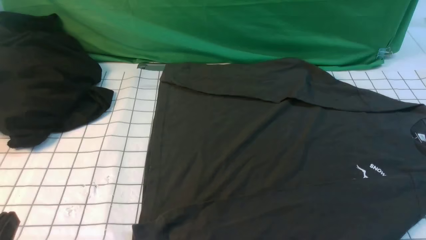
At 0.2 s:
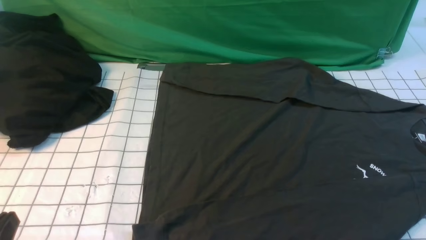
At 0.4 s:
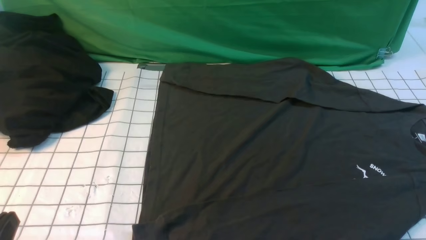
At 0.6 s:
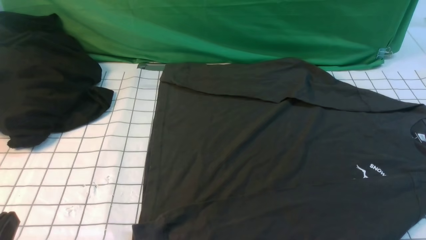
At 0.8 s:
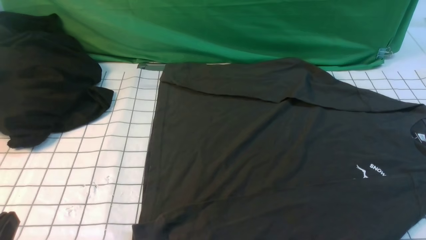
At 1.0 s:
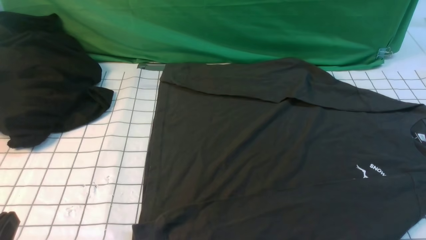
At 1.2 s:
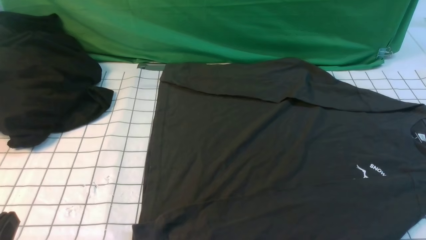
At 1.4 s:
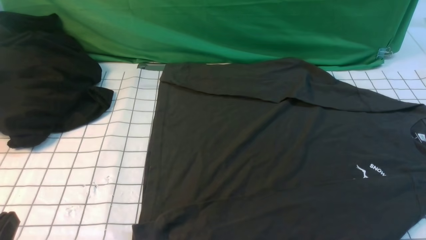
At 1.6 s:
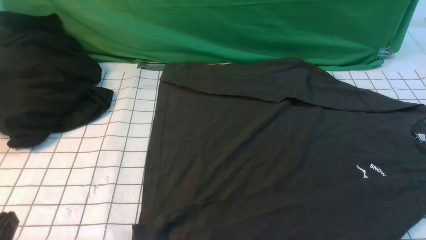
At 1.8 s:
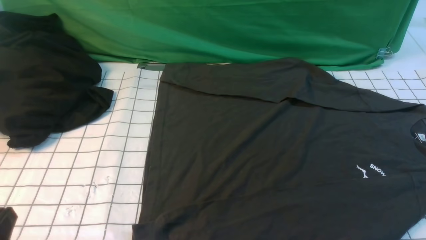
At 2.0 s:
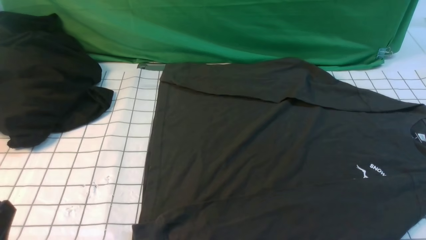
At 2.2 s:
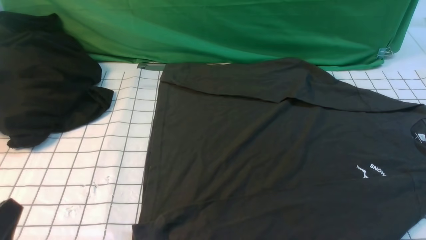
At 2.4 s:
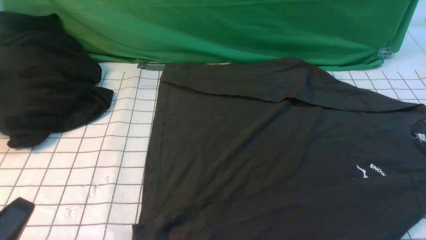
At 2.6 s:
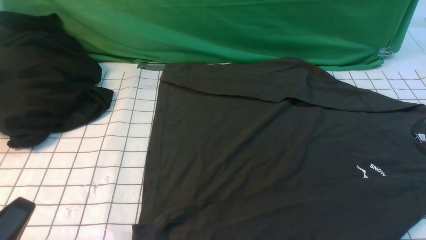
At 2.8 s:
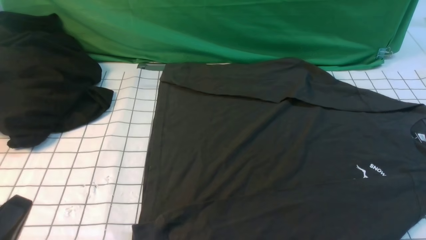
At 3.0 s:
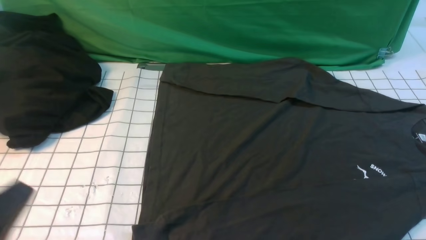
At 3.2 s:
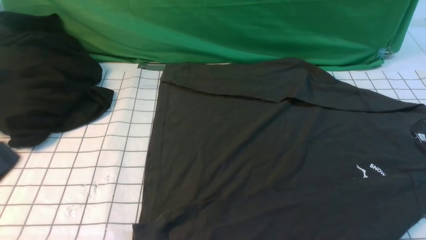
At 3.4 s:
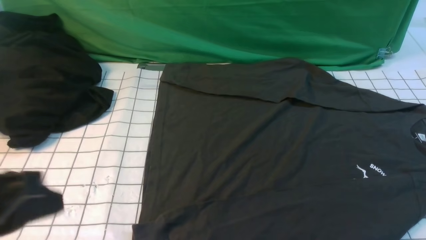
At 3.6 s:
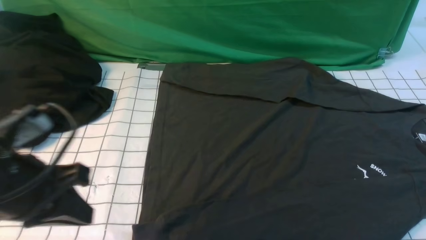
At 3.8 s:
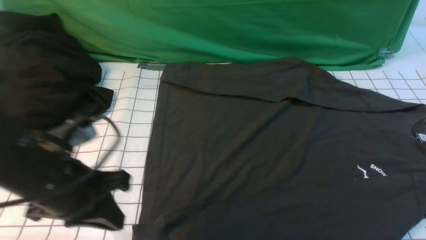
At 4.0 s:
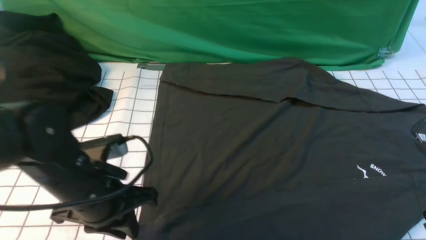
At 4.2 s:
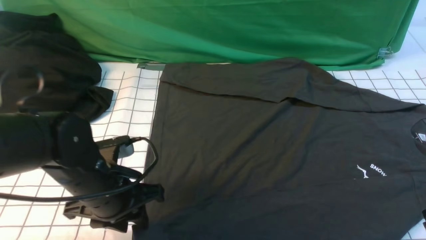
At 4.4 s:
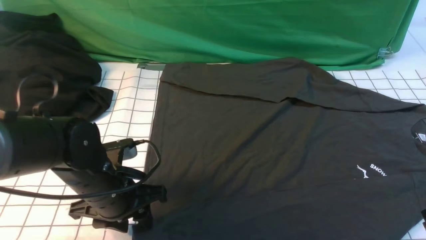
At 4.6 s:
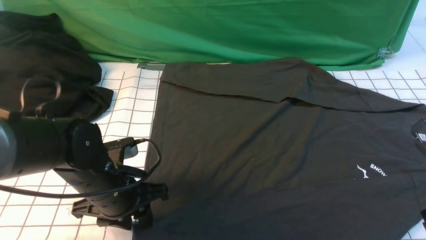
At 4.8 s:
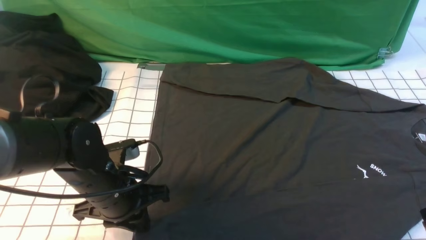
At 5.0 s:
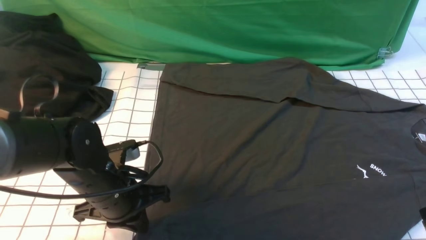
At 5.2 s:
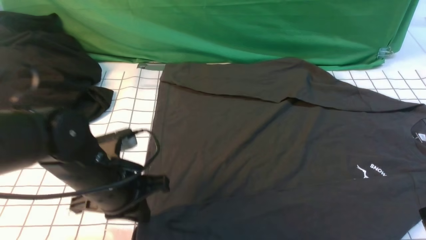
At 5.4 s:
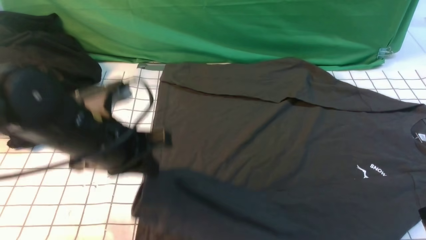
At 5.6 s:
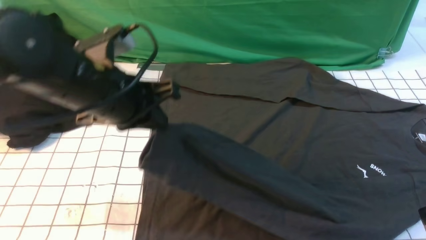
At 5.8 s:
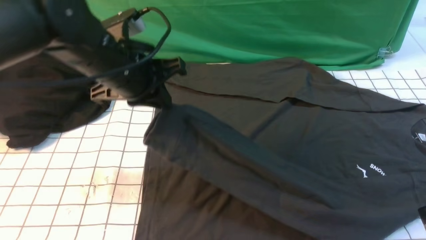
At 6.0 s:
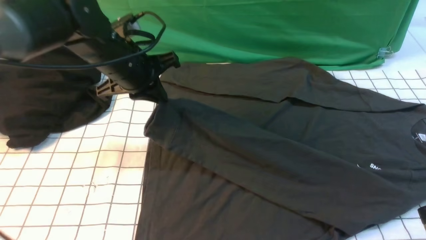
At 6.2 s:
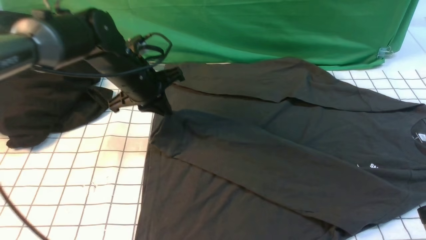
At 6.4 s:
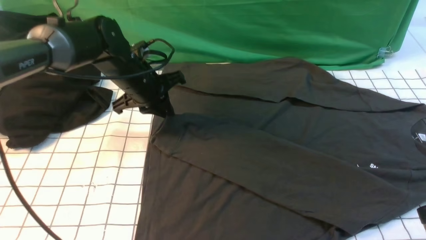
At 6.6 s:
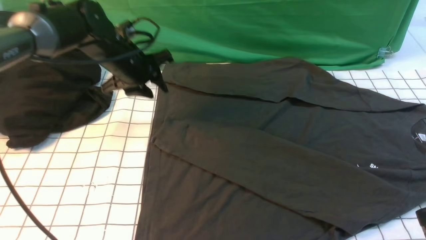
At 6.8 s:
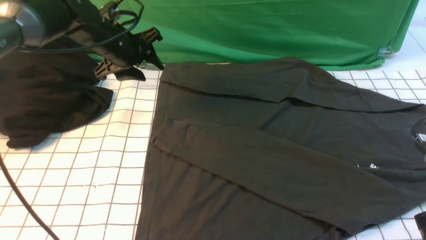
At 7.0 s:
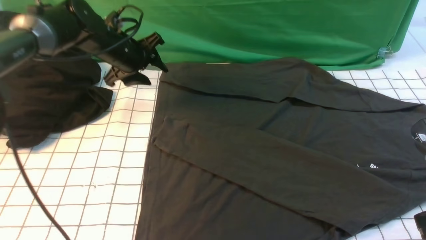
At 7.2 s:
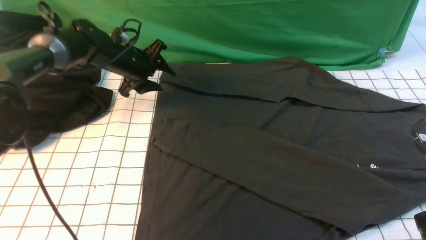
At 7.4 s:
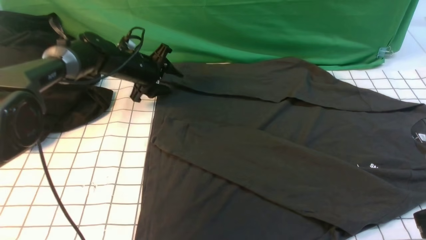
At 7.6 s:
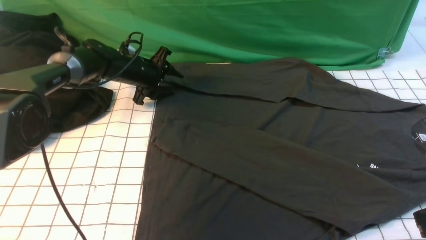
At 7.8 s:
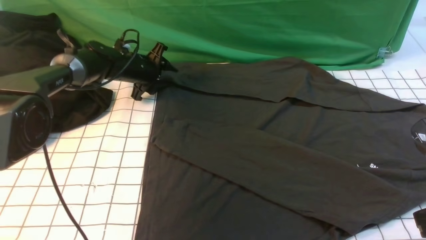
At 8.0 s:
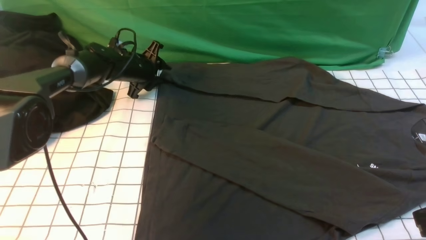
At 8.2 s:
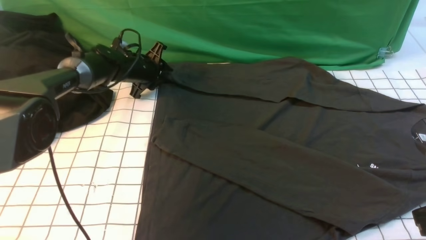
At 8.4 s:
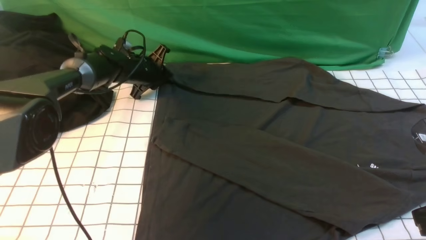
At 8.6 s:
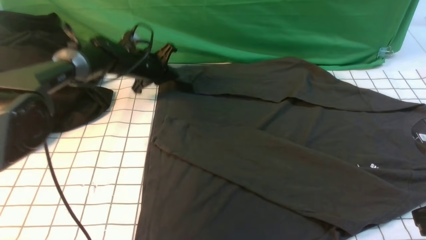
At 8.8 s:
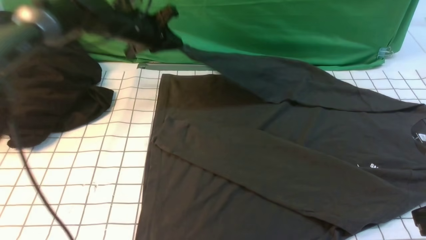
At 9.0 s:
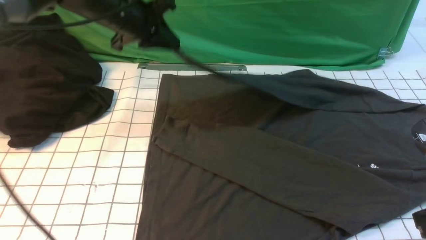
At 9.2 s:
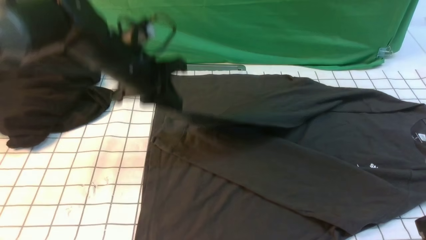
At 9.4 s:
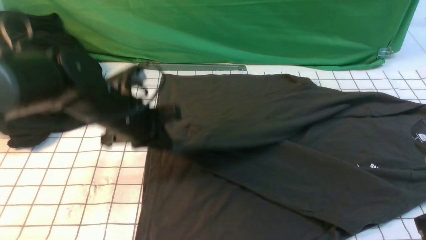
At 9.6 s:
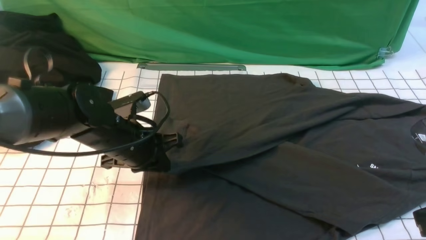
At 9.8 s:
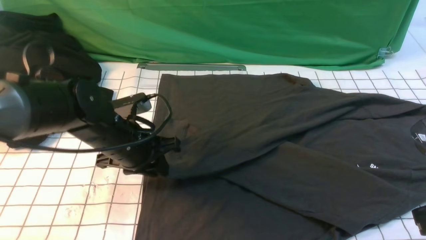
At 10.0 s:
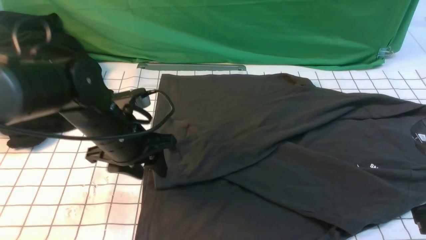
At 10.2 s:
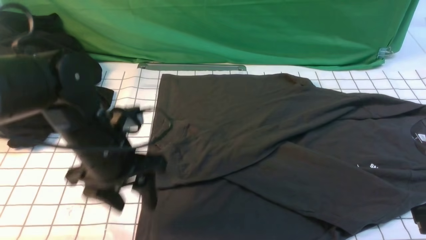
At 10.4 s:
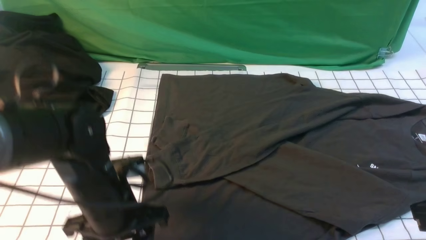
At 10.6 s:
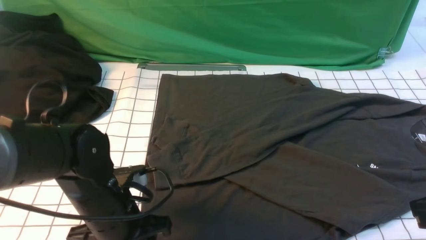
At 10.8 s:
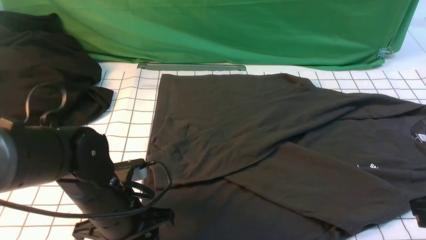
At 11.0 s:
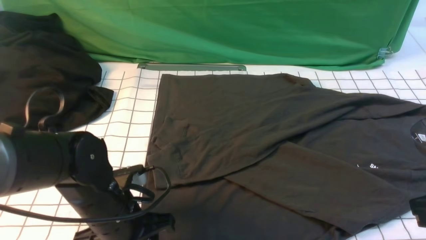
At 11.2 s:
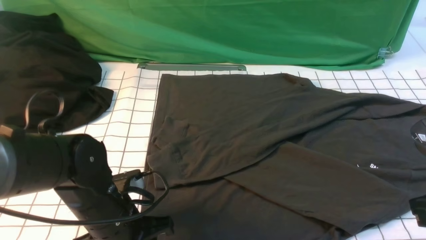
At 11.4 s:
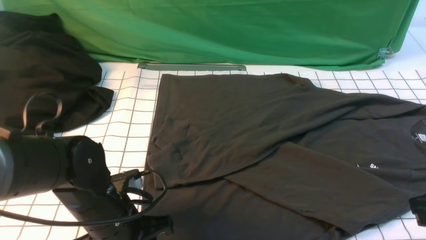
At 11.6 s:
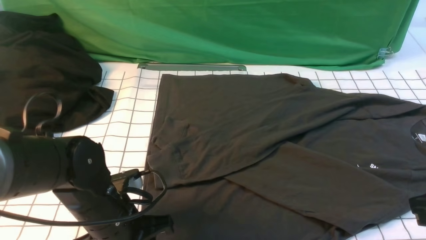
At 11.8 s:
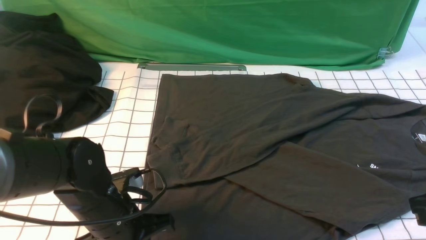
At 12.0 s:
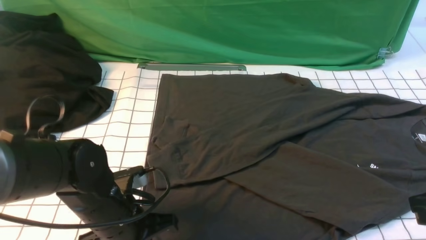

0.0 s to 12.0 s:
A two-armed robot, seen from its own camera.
Step, 0.0 to 5.2 s: use the left arm to clamp the cuff closest to it.
Step, 5.4 to 6.6 s: use the left arm to drag and place the cuff at the centered position on the left edge of the fabric.
Step, 6.8 to 8.4 s: use the left arm to clamp the cuff farthest from it.
Step, 8.8 to 10.0 s: use the left arm to drag and drop the cuff onto the cuff closest to the left arm.
0.0 to 1.6 s: Neither gripper changes place.
1.6 to 3.0 s: The left gripper goes roughly 10 cm upward.
3.0 to 4.4 s: The left gripper heads forward, downward and to the right, covering roughly 25 cm, and opens its fingers, while the right gripper goes approximately 10 cm forward.
4.4 to 6.0 s: The left gripper travels forward and upward by some 15 cm, and closes.
6.0 to 7.6 s: The left gripper moves forward and downward, approximately 20 cm, and opens its fingers.
7.6 to 9.0 s: The left gripper moves upward and backward, roughly 20 cm, and closes up.
9.0 to 10.4 s: The left gripper is displaced backward and downward by some 25 cm, and opens up.
10.4 to 12.0 s: The left gripper closes its fingers.

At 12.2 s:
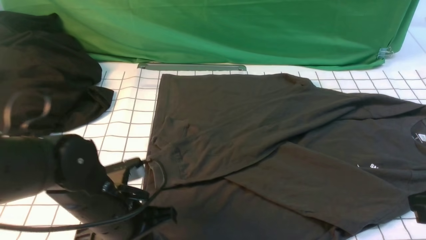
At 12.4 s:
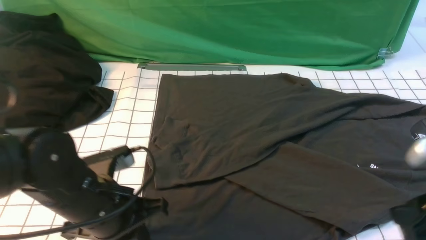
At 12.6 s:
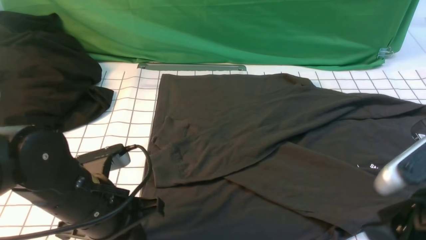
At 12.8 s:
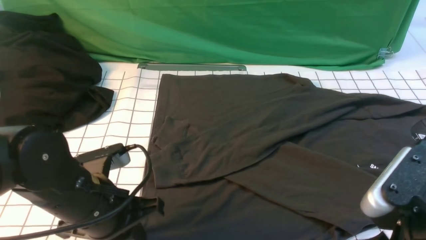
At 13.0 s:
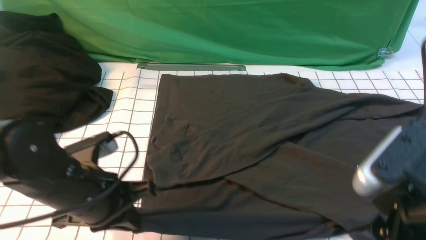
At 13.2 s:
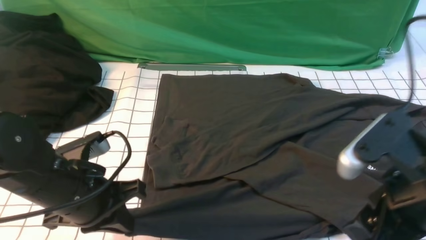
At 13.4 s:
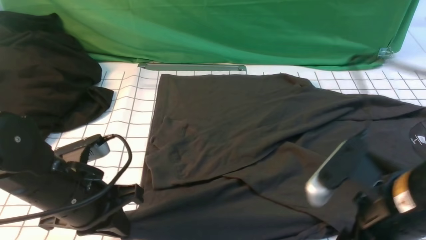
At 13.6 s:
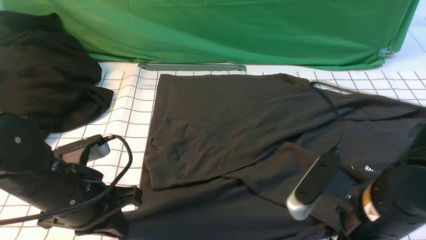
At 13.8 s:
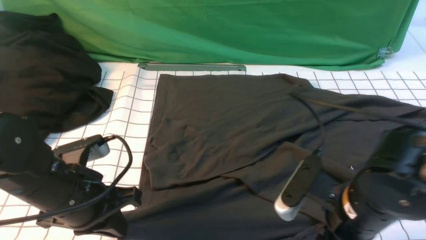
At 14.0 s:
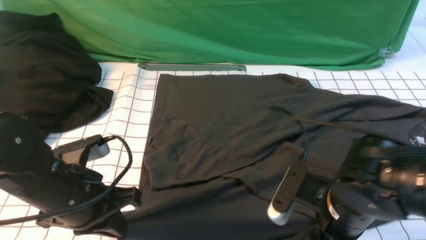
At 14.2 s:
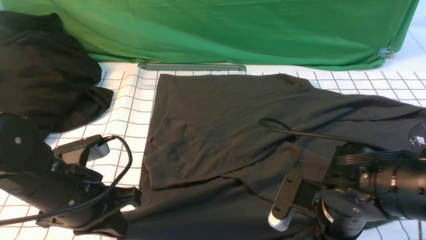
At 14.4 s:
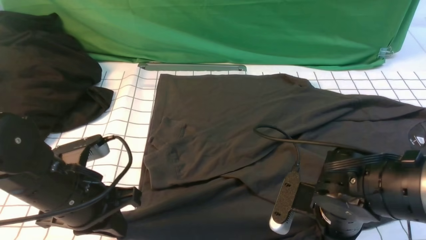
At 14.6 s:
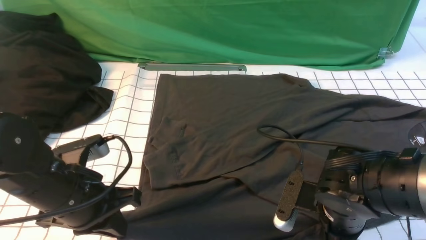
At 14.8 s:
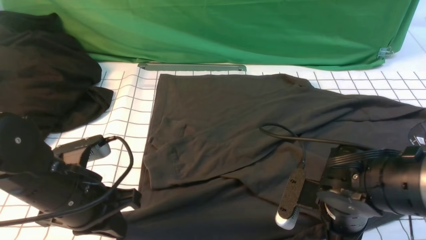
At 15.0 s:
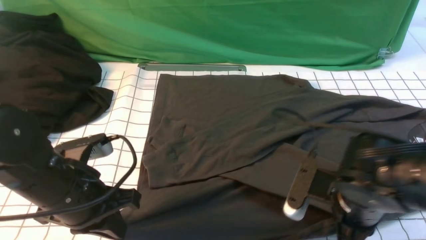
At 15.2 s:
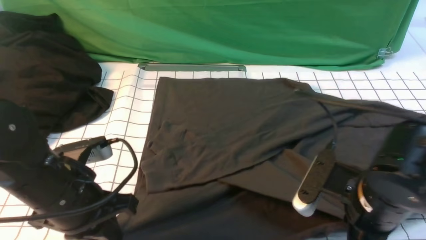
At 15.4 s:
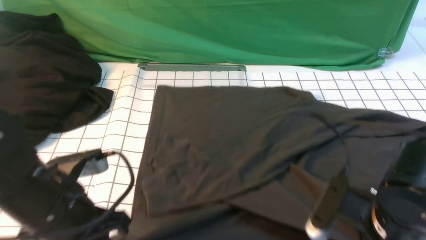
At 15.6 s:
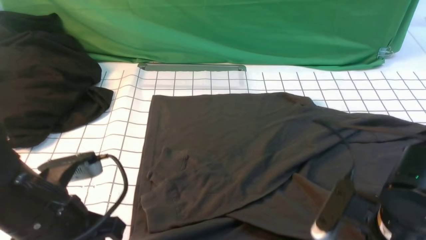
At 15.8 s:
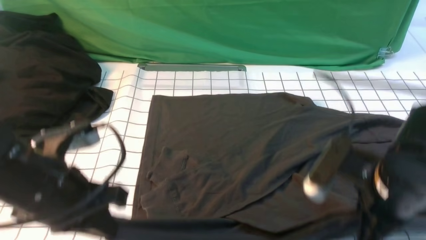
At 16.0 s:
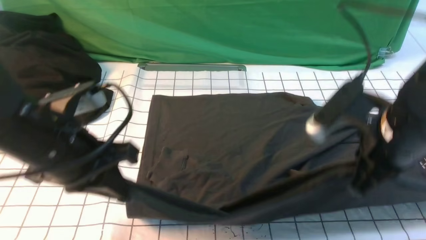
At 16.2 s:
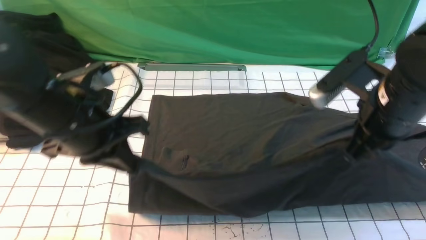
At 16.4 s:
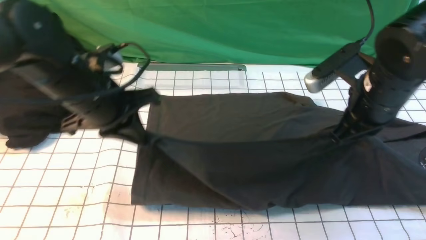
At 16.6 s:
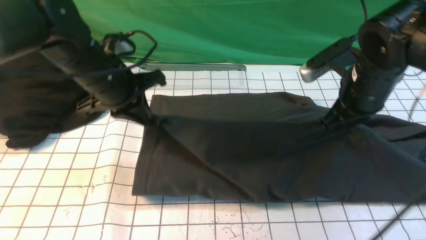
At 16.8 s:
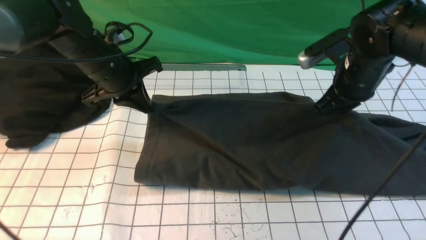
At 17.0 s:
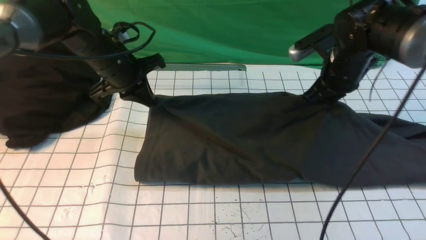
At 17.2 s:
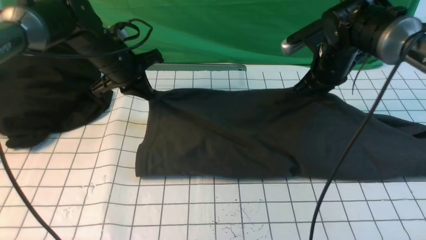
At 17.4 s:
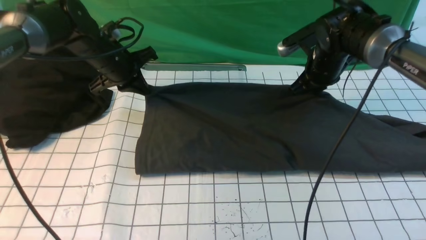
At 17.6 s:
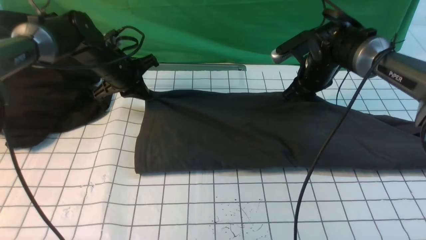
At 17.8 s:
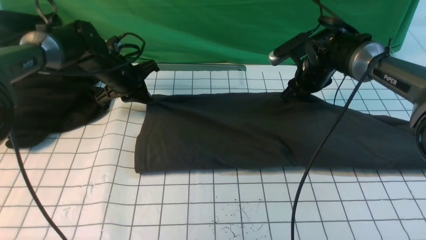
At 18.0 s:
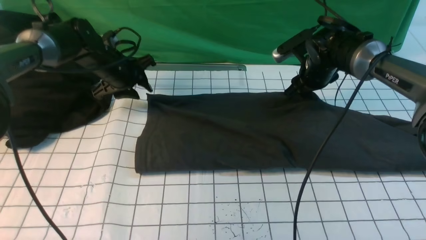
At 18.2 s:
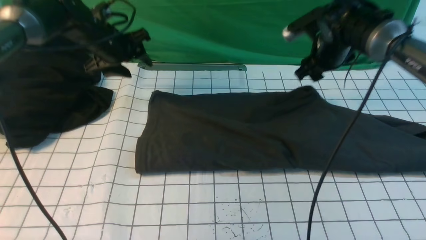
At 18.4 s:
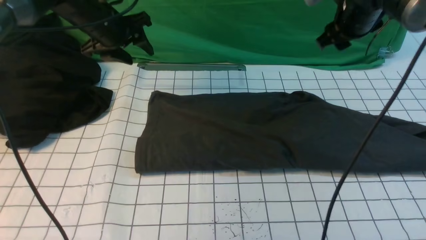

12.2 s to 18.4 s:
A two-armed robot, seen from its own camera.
Step, 12.2 to 15.4 s: use both arms simultaneously to clamp the lower edge of the clothing fabric.
Step, 15.8 to 18.0 s: use both arms to drag the lower edge of the fabric forward and fold it over the upper edge.
12.2 to 13.8 s: The left gripper moves some 5 cm. Meanwhile the right gripper shifts roughly 15 cm to the left and downward, and opens up.
13.8 to 15.4 s: The right gripper closes.
15.4 to 16.8 s: The grippers both shift forward by approximately 20 cm.
16.8 to 18.4 s: The left gripper moves forward, some 10 cm, and opens; the right gripper heads forward and upward, covering roughly 10 cm, and opens its fingers.
